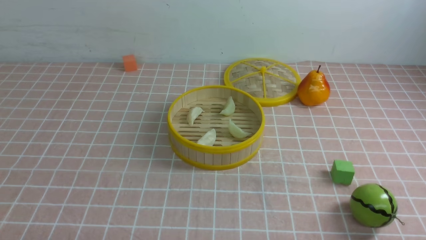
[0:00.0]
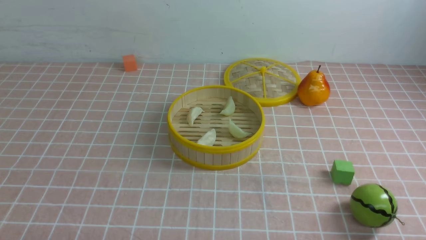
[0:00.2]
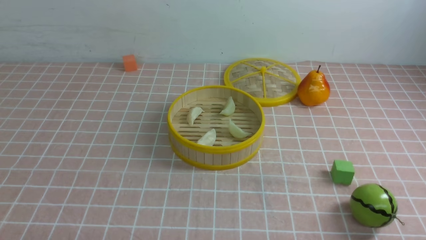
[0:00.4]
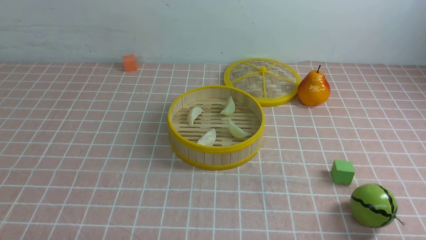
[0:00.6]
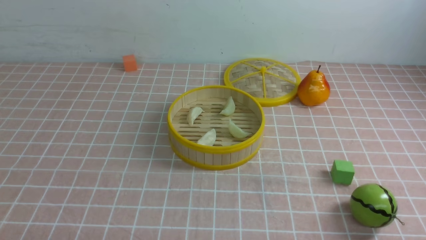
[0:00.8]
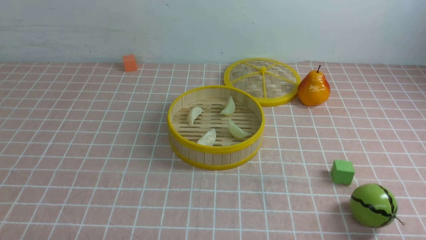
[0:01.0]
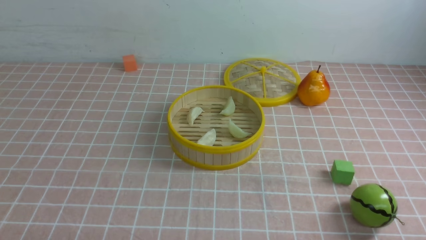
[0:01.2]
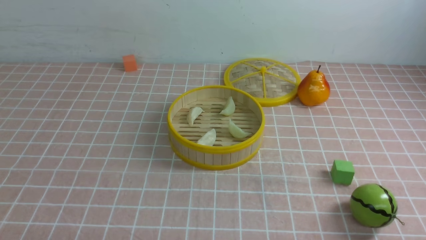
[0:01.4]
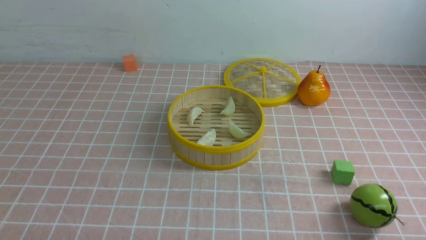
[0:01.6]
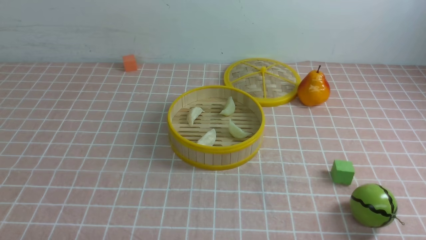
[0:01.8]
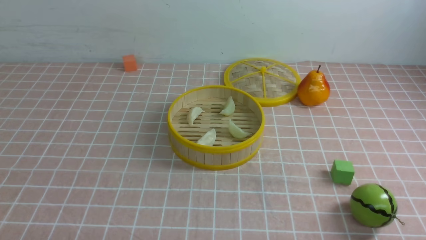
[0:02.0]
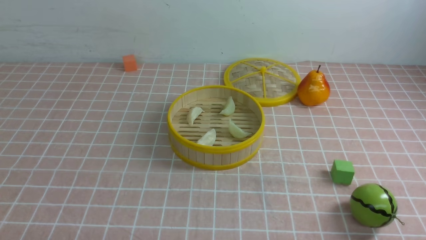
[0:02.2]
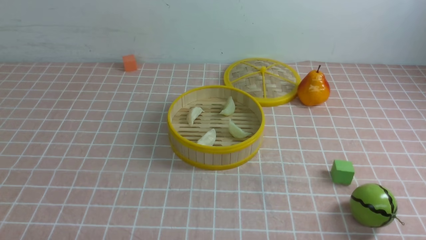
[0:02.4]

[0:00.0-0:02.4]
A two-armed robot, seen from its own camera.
Task of the whole recording: put the dumplings into the steamer on the table with the pink tablecloth.
0:00.0 to 0:02.4: The two grippers keep their place.
